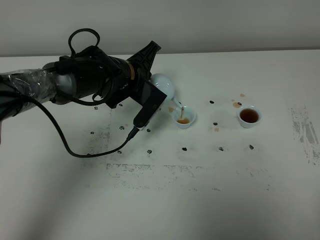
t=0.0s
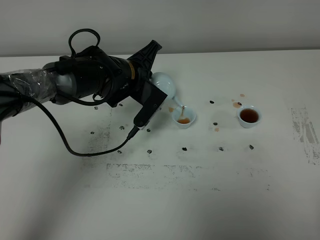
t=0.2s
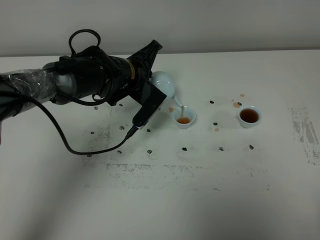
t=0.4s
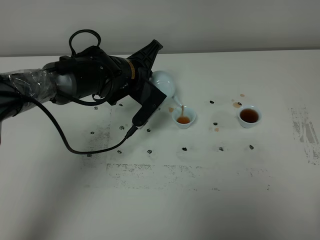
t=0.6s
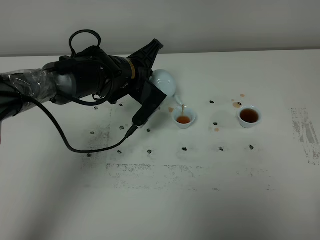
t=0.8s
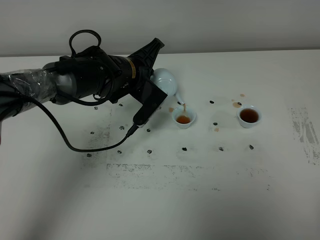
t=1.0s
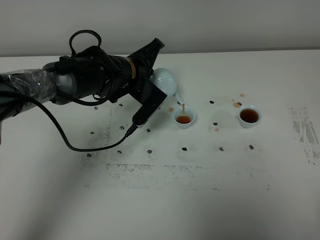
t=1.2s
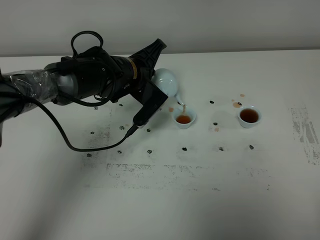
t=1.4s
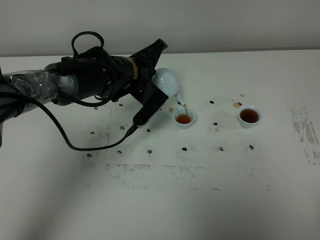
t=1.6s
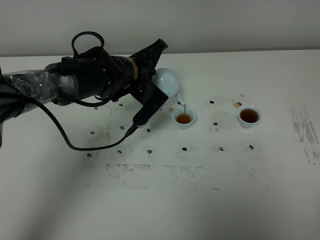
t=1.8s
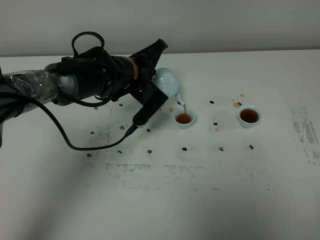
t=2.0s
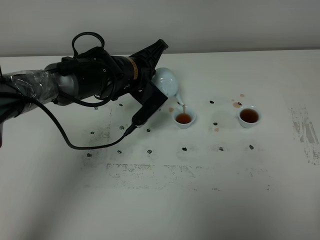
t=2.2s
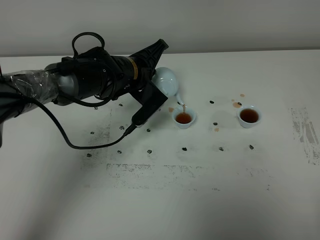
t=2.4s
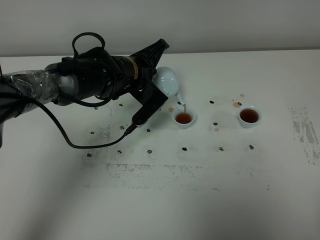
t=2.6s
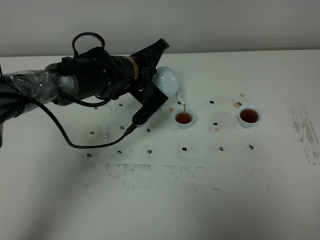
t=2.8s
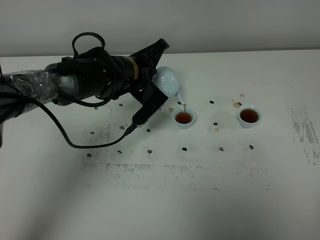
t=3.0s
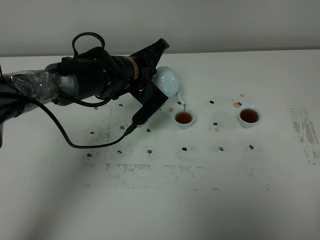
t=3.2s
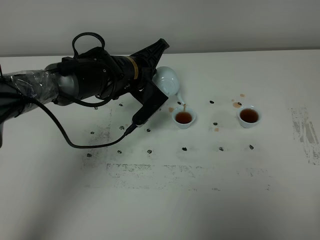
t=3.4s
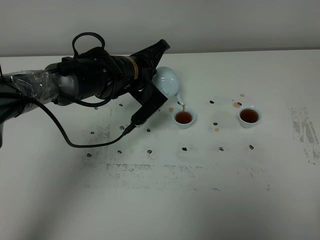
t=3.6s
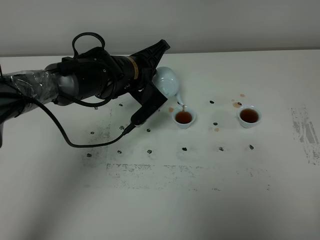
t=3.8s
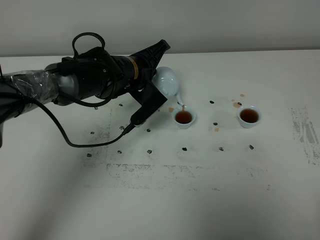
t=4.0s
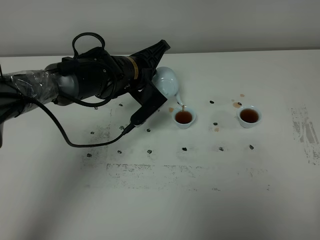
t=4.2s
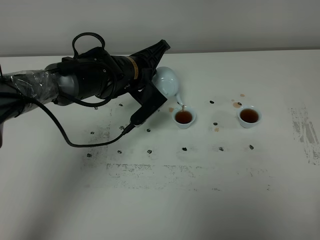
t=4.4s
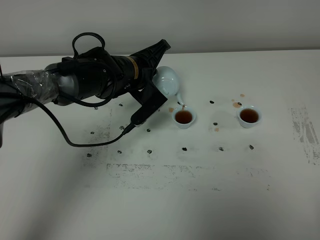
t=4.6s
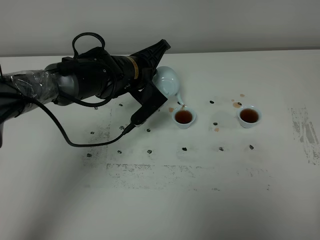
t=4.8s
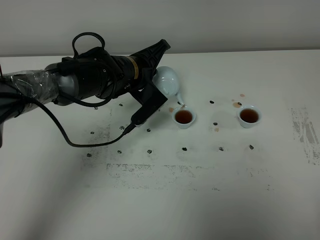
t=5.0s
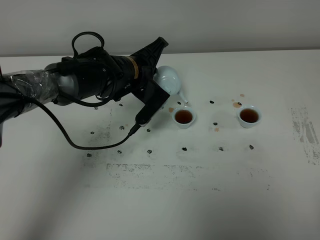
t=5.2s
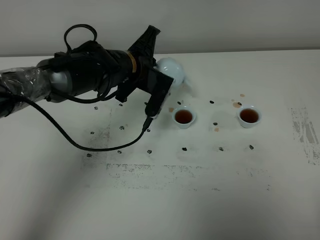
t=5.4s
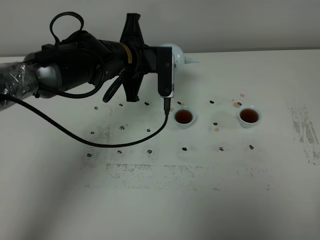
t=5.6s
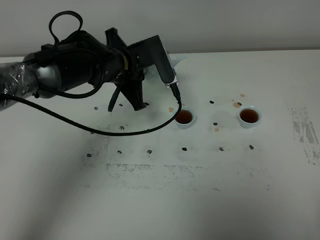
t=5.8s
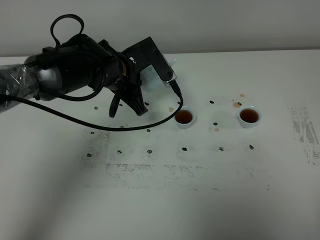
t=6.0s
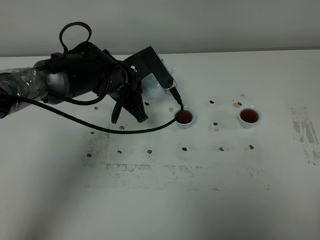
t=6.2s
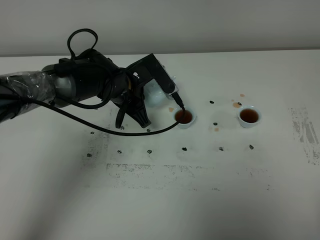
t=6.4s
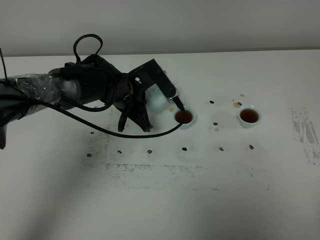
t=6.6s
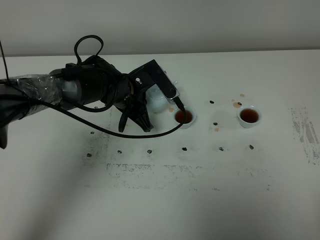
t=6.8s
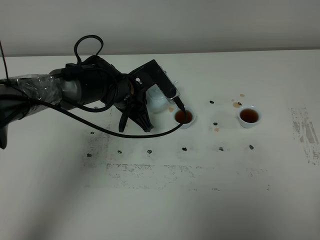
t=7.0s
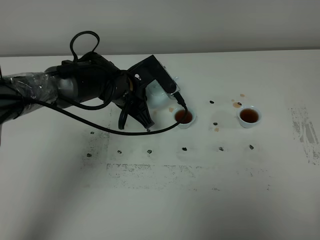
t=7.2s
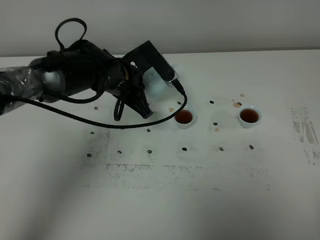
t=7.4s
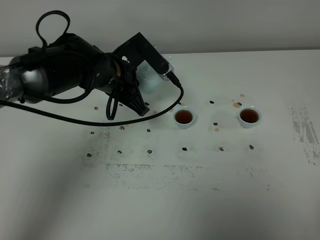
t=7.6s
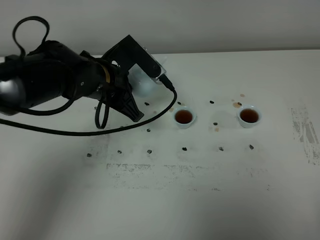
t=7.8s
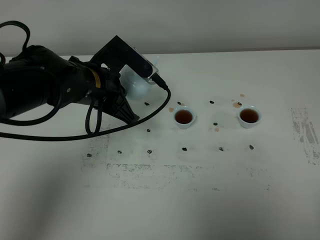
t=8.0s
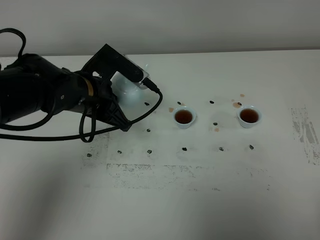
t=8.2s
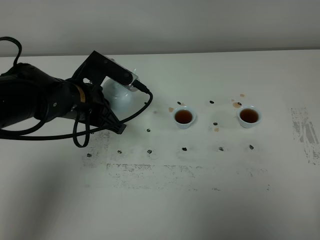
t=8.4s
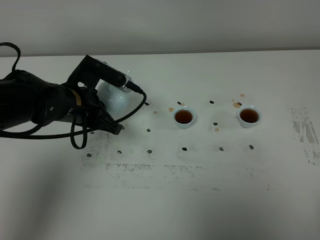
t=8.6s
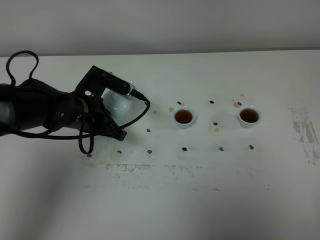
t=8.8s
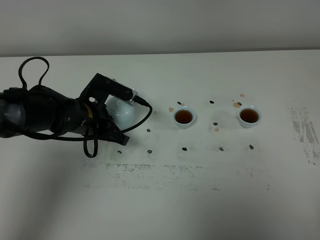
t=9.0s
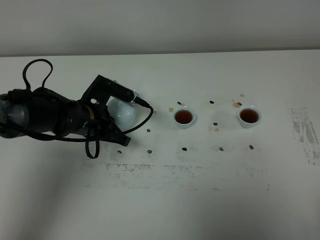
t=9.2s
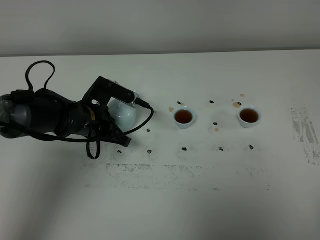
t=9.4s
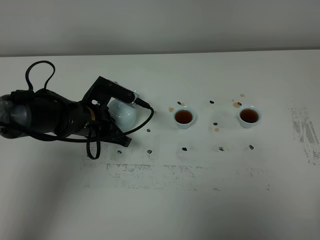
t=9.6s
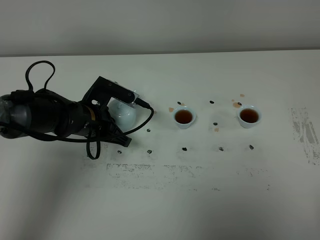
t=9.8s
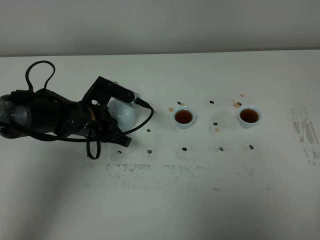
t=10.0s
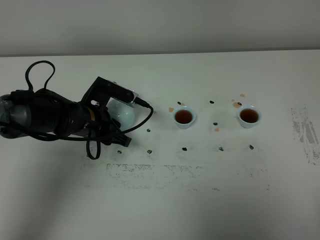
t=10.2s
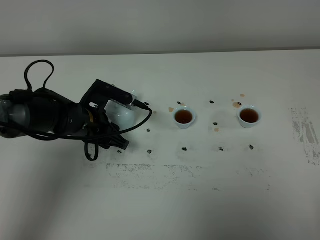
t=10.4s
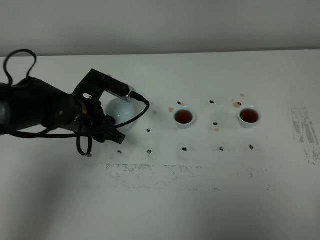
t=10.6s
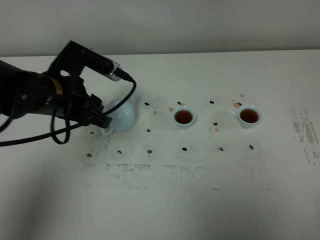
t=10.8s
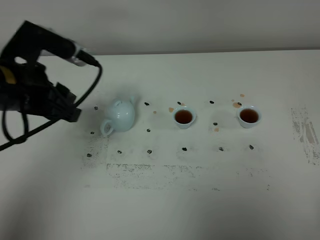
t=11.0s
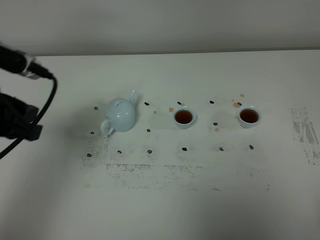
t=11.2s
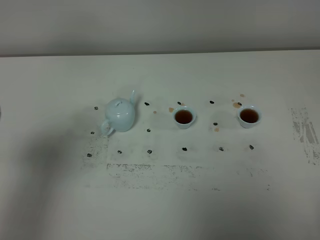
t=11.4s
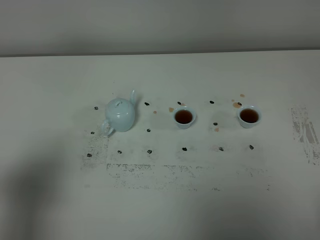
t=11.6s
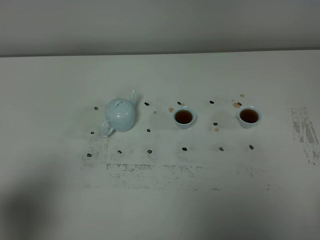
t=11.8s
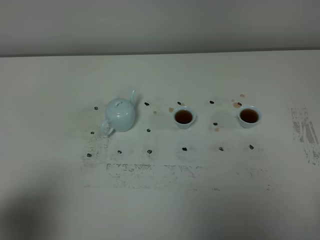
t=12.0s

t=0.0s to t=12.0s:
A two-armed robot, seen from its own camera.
Task of the whole recording: grasp the blue porcelain teapot and pour the tea into the two blue porcelain teacups one by one, put the blue porcelain teapot back in its original place.
Step, t=0.0s to t=5.4s: Pour tea into the teacup with the left gripper.
t=0.0s to t=1.6s: The grippers move only a little.
t=1.6s to t=4.4s: Both grippers stay put.
t=6.0s to t=7.6s: The grippers stay close to where they were, moving slightly.
t=7.6s to t=9.0s: The left gripper moves downward and to the left, roughly 10 cm.
t=9.0s to t=10.4s: The left gripper opens.
t=10.4s to t=12.0s: The left gripper moves backward, upward and to the left, some 35 cm.

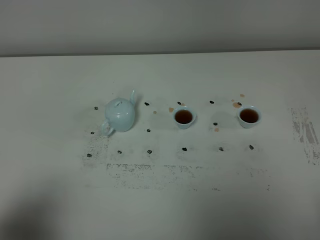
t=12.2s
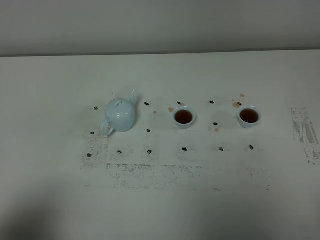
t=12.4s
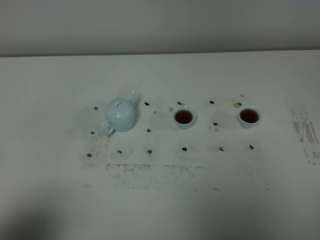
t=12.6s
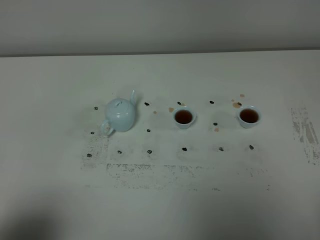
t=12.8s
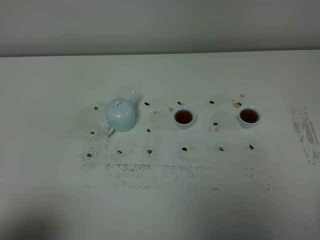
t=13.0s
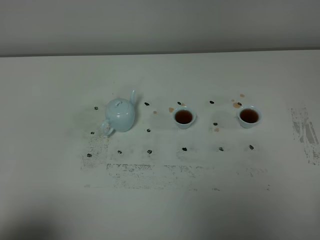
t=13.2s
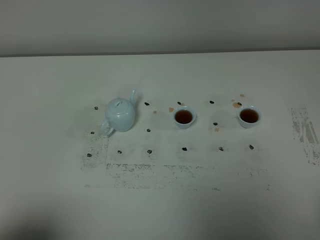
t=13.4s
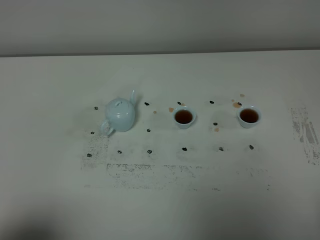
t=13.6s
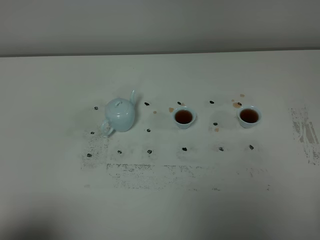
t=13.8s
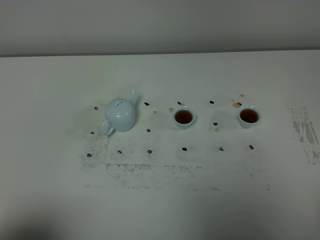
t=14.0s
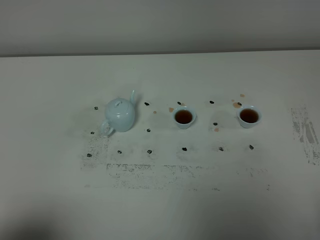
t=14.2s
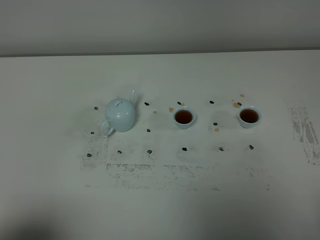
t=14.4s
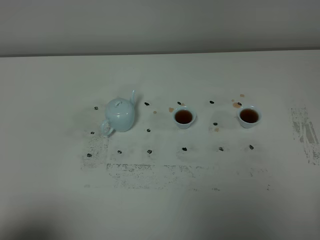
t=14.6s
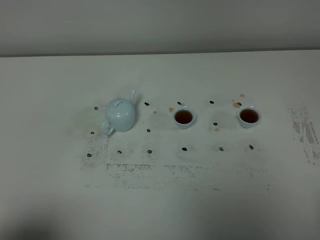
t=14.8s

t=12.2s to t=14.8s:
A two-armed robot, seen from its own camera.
Task of the whole recording: grasp the blue porcelain teapot and pour the tea into the two blue porcelain teacups one by one, put the blue porcelain teapot back in its original place.
t=13.4s to t=14.8s: Neither gripper changes place.

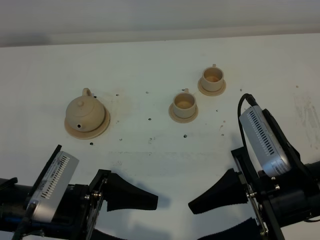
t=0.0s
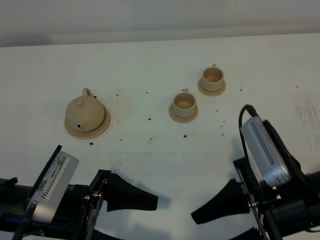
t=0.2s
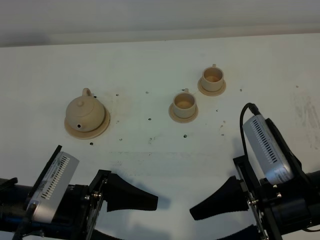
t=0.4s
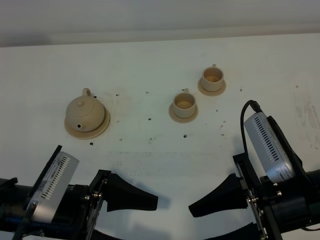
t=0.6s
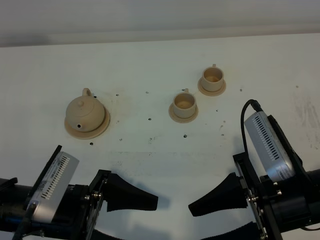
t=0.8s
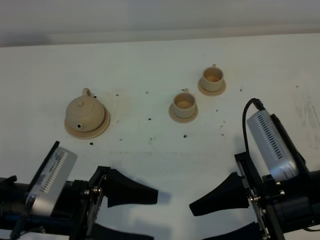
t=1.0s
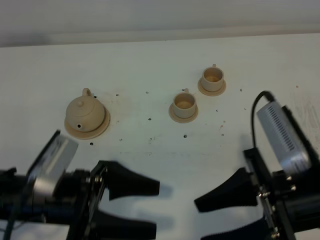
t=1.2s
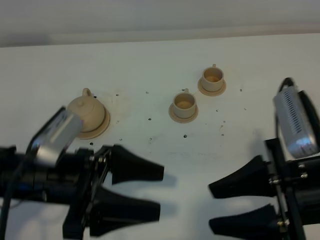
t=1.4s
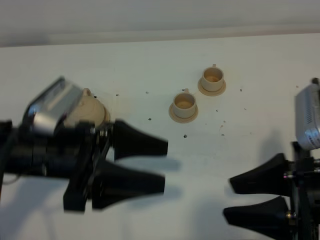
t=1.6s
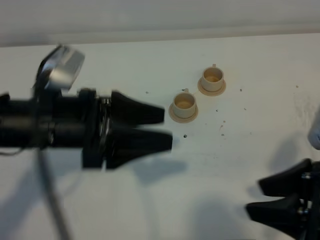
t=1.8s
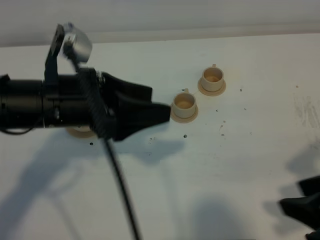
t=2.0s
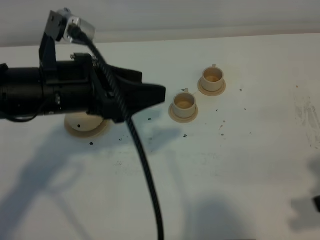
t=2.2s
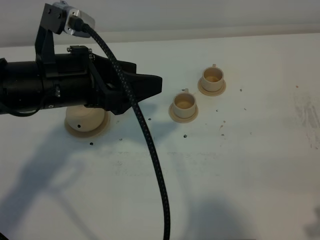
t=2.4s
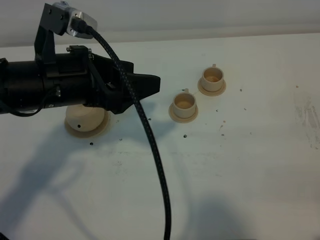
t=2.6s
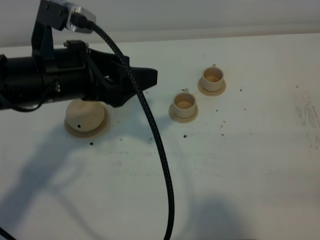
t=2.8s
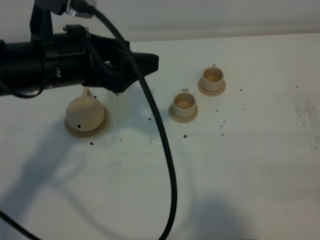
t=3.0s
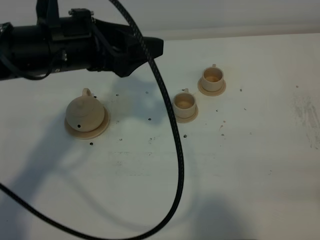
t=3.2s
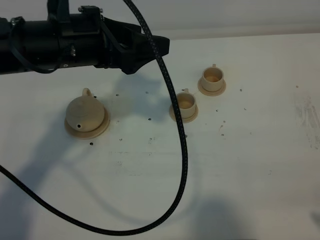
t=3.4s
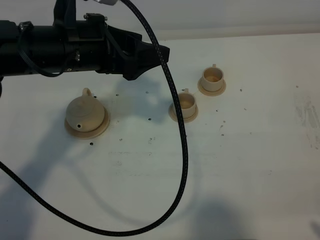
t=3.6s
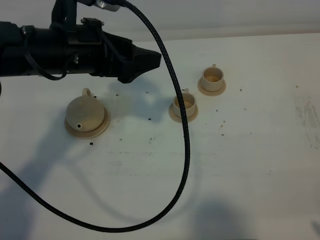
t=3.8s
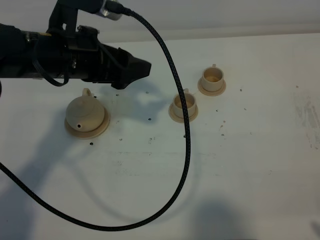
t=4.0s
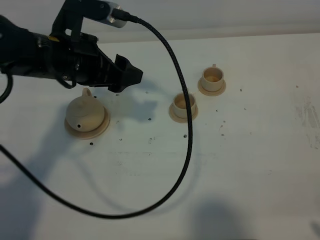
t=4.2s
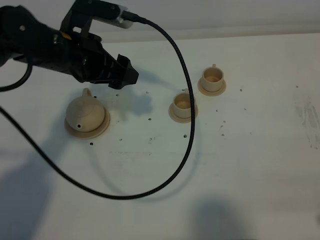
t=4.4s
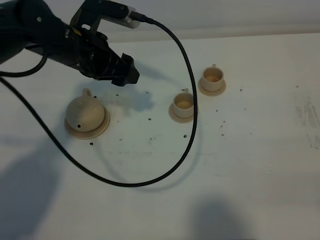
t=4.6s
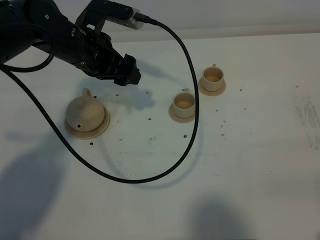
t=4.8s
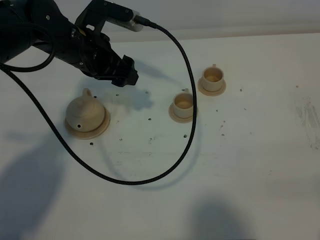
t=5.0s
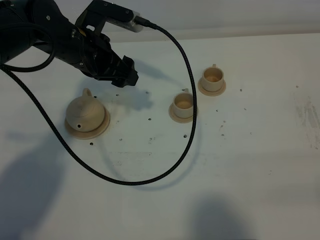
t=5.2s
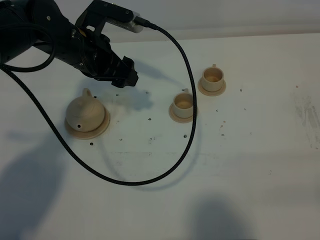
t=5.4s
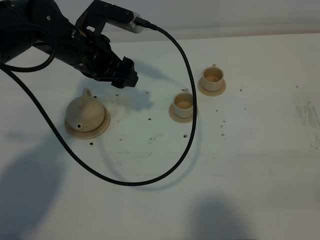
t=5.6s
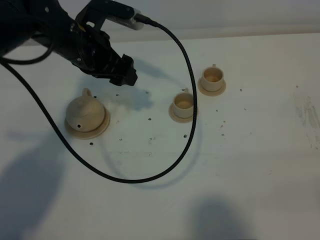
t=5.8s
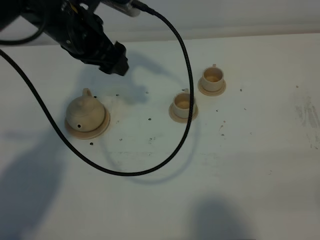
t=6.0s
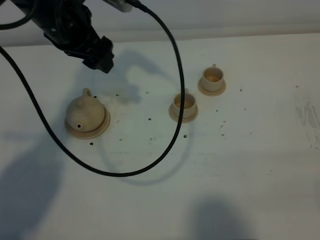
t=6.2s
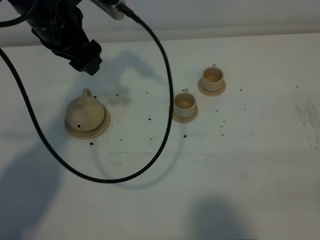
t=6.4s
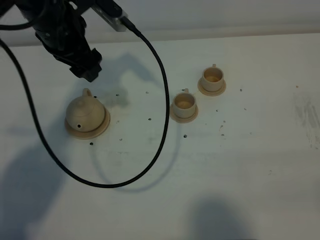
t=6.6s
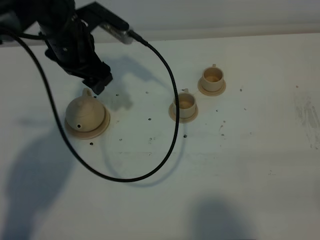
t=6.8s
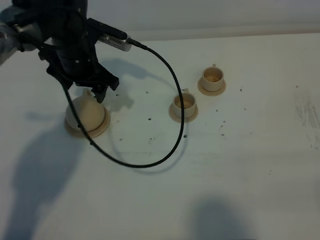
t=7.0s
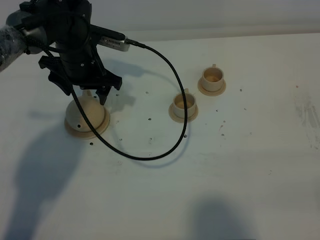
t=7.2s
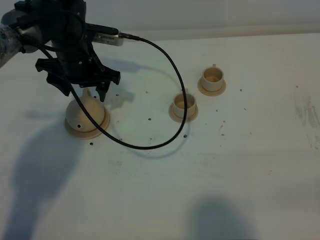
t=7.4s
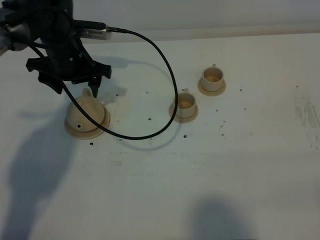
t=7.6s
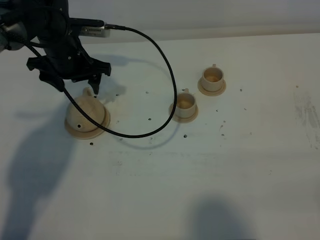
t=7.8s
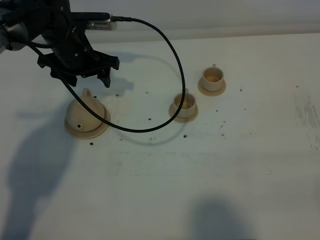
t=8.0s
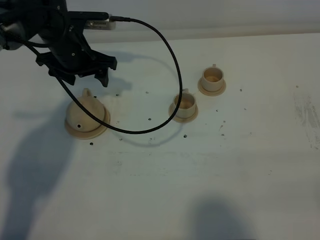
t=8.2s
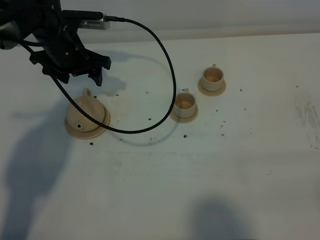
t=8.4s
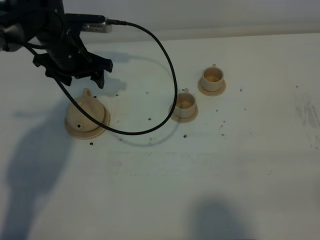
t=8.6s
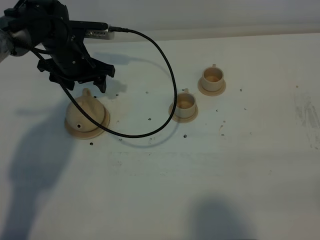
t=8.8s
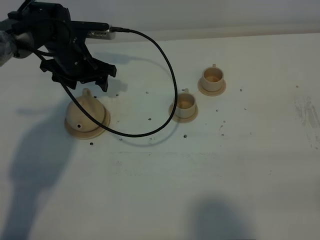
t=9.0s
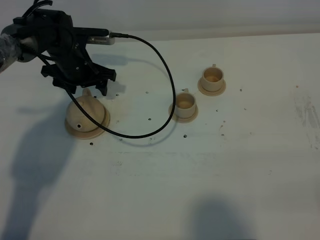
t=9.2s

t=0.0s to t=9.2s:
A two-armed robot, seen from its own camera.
Task of the whole recording: grasp the brown teapot and pour the tea into the two brown teacups one by one, put the brown teapot back in its original place.
t=0.0s to t=1.6s: The left gripper heads upward and forward, covering approximately 10 cm. The right gripper goes approximately 5 cm upward.
t=1.6s to t=3.0s: The right gripper shifts roughly 15 cm to the right and backward. The left gripper shifts about 10 cm forward and upward.
t=3.0s to t=4.6s: The right gripper closes its fingers, while the left gripper travels forward and downward by about 10 cm.
t=4.6s to t=6.2s: The left gripper moves upward, approximately 5 cm.
t=6.2s to t=7.6s: The left gripper travels downward and forward by some 15 cm.
t=7.6s to t=9.2s: The left gripper is displaced downward by some 5 cm.
